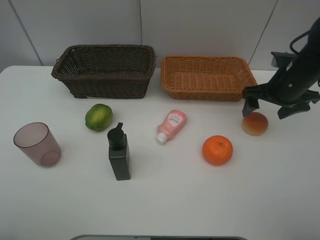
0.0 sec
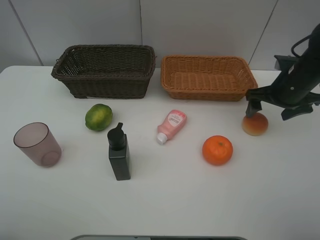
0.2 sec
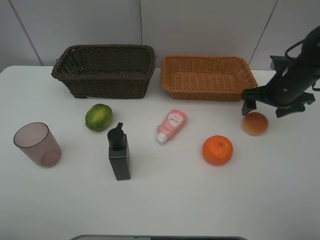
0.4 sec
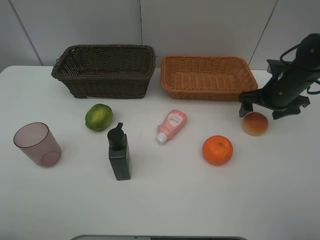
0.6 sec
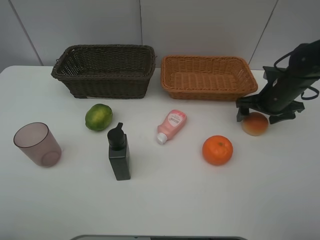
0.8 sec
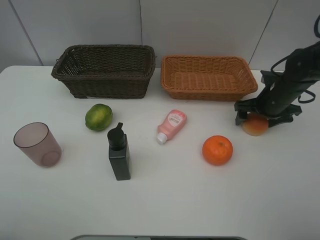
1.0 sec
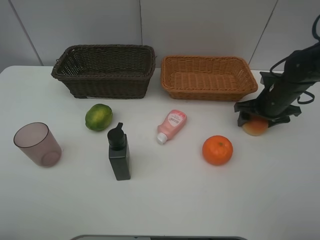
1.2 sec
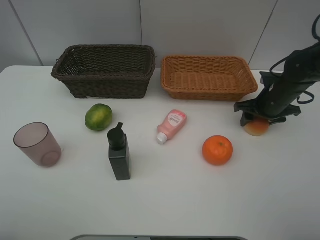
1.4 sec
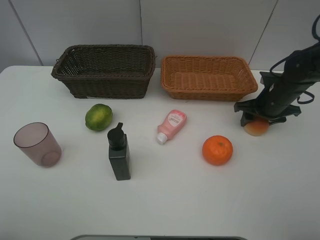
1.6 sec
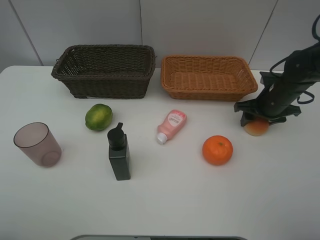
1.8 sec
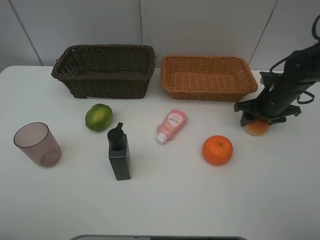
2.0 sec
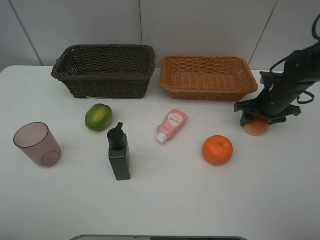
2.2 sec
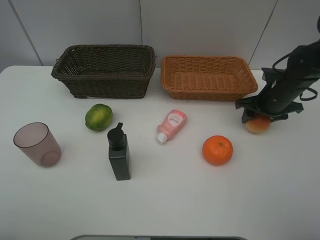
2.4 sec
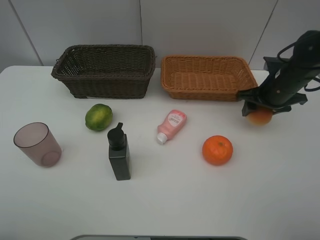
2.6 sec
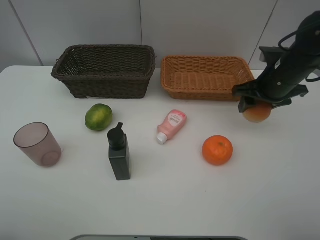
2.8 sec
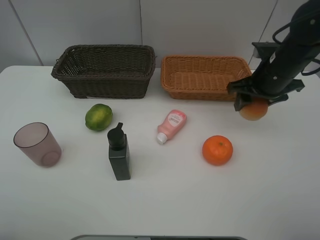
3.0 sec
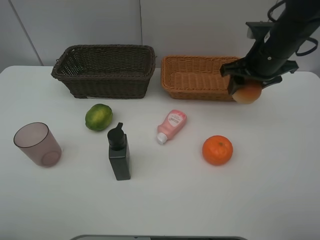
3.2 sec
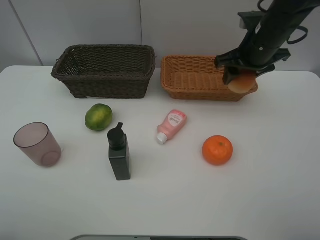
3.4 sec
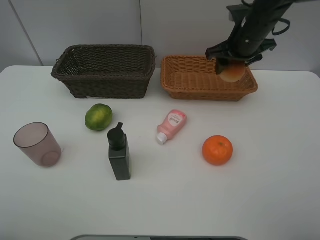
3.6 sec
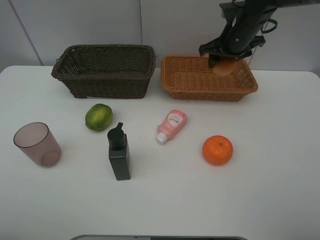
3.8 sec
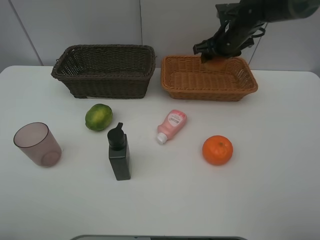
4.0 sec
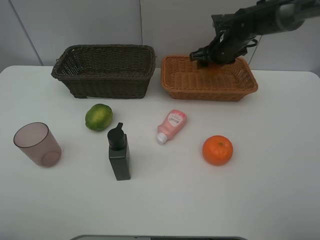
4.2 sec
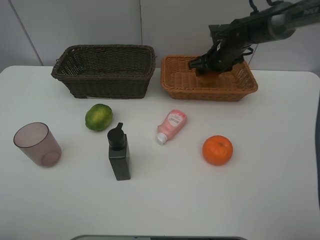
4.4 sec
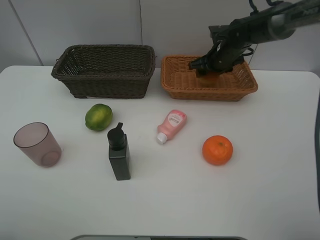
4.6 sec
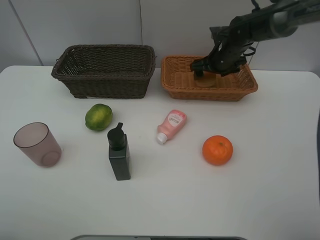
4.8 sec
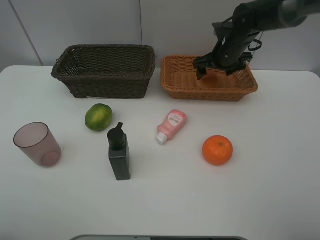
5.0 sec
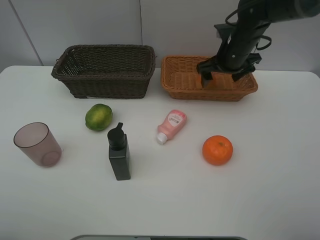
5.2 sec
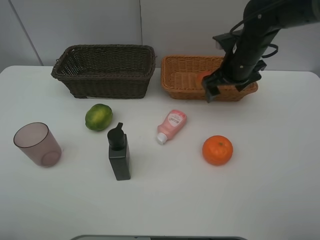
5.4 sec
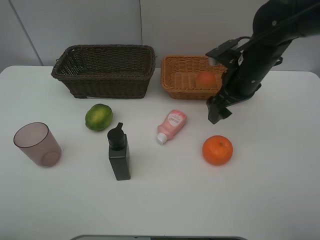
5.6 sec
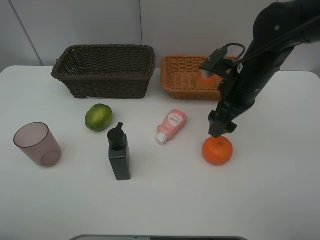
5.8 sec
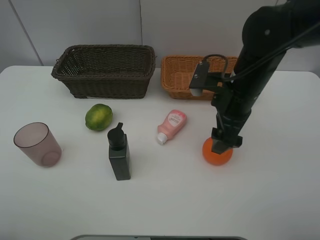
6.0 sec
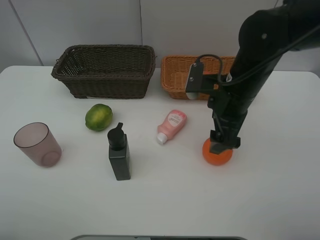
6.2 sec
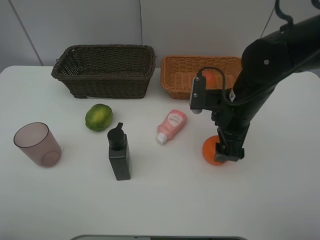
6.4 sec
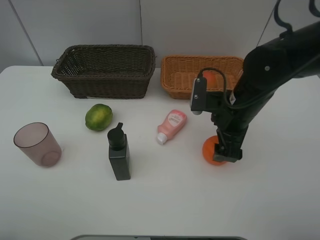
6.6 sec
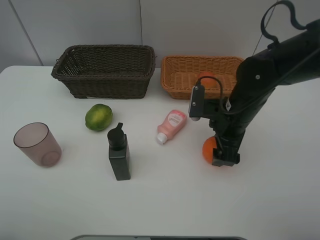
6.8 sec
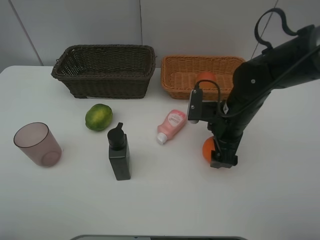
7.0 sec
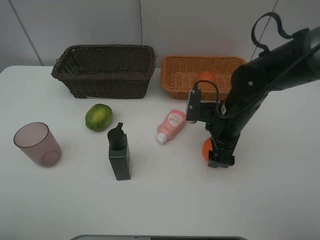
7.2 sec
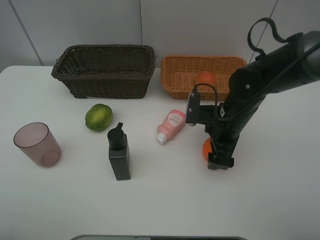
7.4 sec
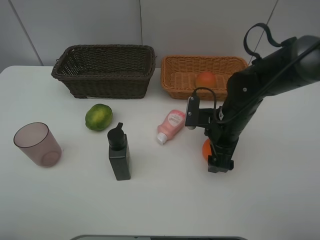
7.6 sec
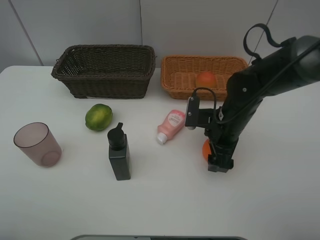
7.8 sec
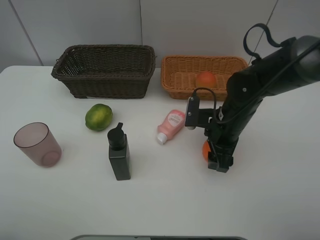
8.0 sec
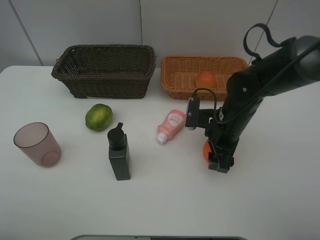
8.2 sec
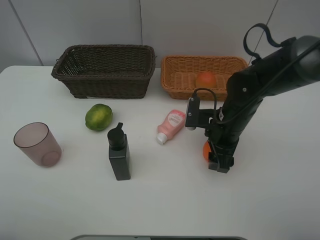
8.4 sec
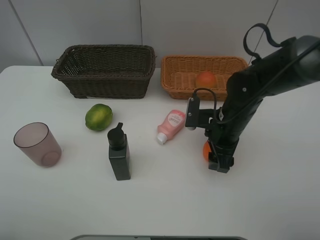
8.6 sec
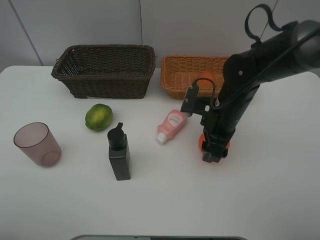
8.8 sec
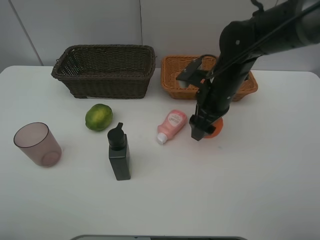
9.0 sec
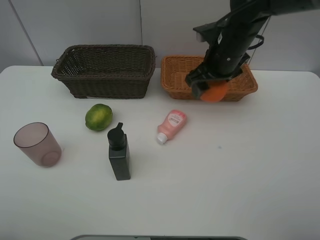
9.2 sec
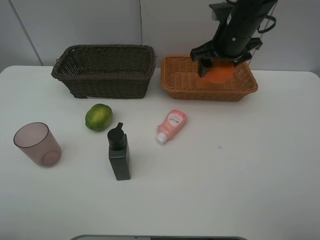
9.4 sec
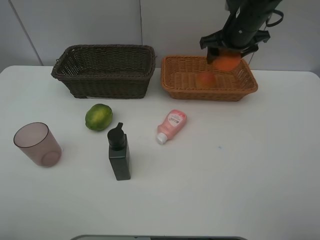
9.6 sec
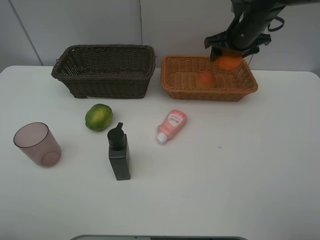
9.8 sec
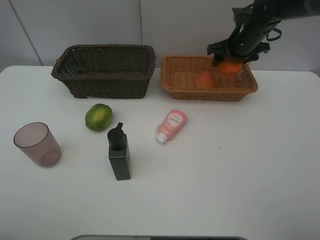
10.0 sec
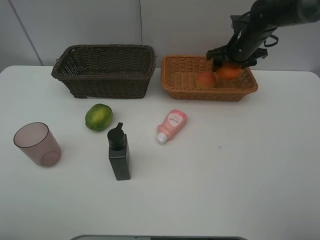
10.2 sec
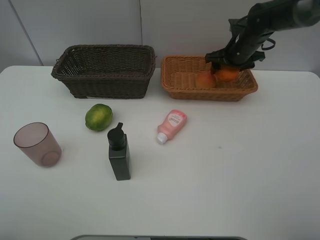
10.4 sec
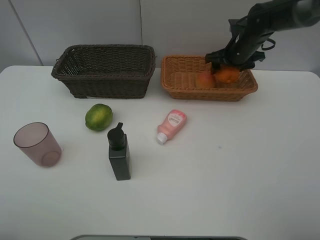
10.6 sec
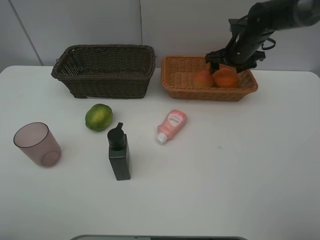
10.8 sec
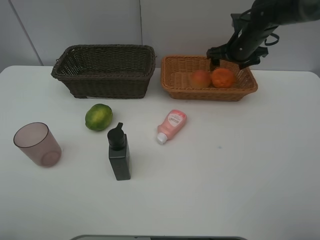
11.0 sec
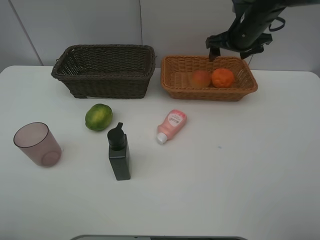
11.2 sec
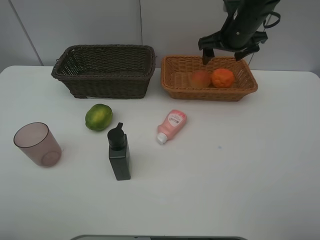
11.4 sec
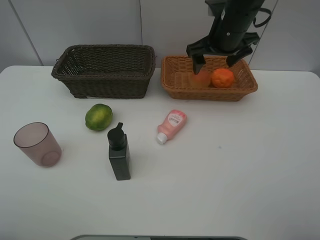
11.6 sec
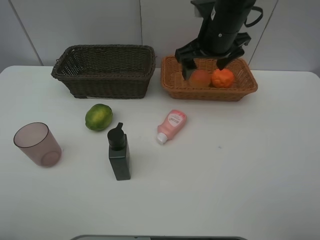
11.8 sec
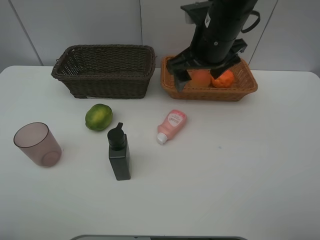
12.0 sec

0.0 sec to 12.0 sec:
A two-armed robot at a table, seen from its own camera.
Task of the whole recording: place multiple objects separately in different baskets.
0.0 sec to 1.6 sec: The right gripper is displaced downward by approximately 5 cm, and closes its fingers.
1.6 sec to 3.0 sec: The right gripper moves upward and to the left, approximately 10 cm.
3.0 sec to 4.4 sec: The right gripper moves forward, some 15 cm.
4.4 sec to 6.0 sec: The right gripper moves backward, approximately 20 cm, and opens.
6.0 sec to 7.6 sec: The right gripper moves downward, approximately 10 cm.
7.6 sec to 9.0 sec: The right gripper travels upward by roughly 5 cm, and closes.
9.0 sec to 10.4 sec: The right gripper heads forward and to the right, covering some 20 cm.
10.4 sec to 12.0 sec: The right gripper travels backward, to the left and upward by roughly 20 cm, and opens its fingers.

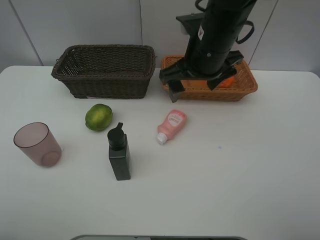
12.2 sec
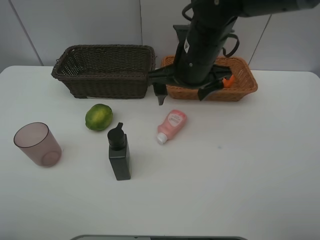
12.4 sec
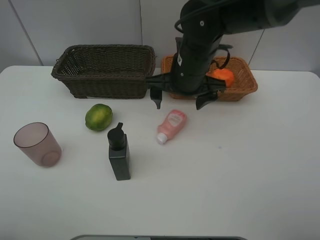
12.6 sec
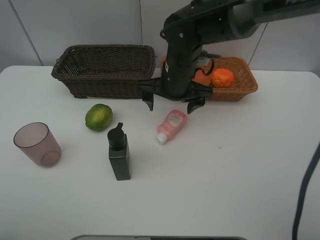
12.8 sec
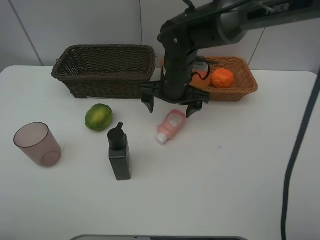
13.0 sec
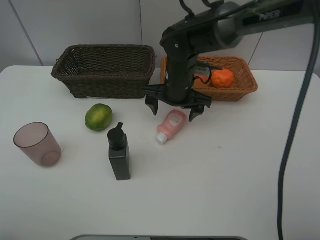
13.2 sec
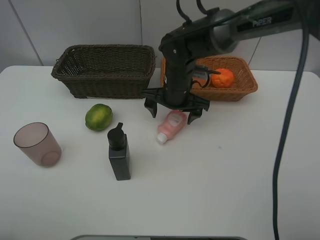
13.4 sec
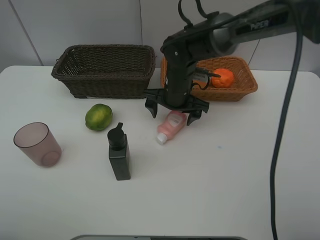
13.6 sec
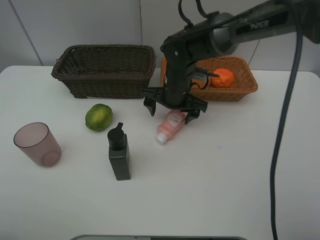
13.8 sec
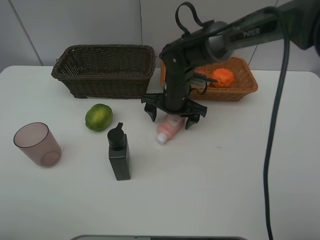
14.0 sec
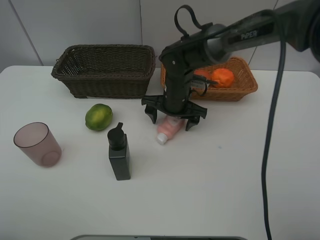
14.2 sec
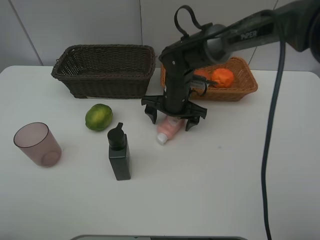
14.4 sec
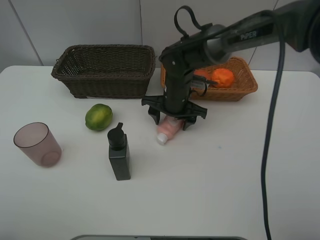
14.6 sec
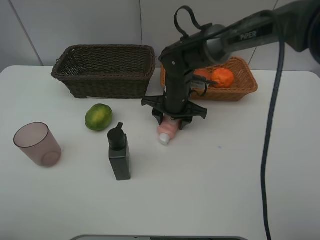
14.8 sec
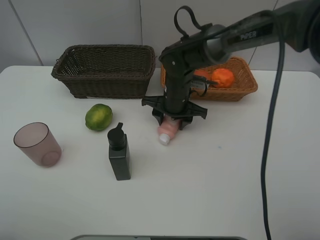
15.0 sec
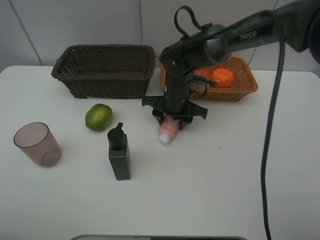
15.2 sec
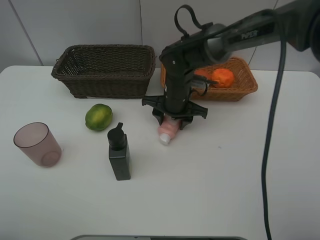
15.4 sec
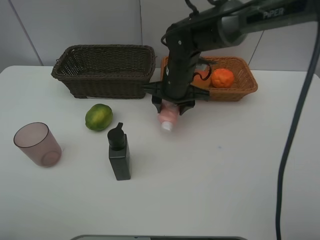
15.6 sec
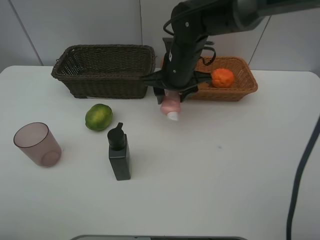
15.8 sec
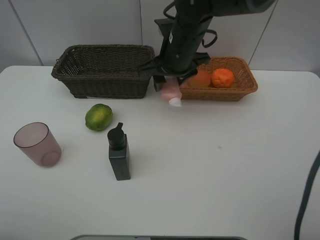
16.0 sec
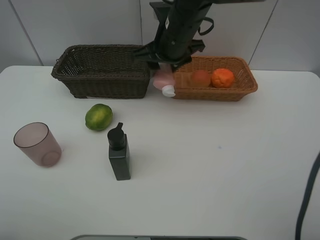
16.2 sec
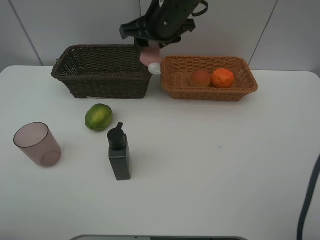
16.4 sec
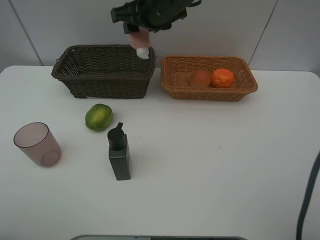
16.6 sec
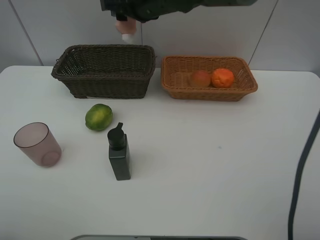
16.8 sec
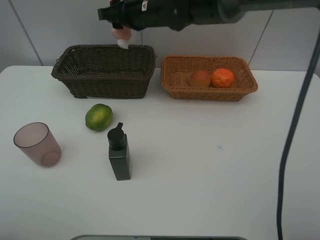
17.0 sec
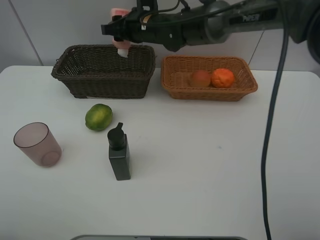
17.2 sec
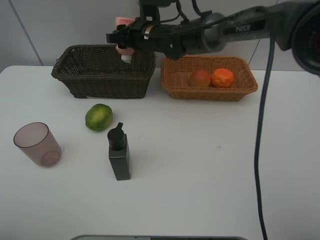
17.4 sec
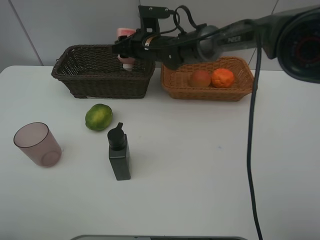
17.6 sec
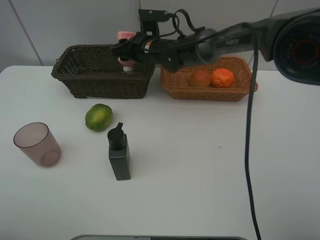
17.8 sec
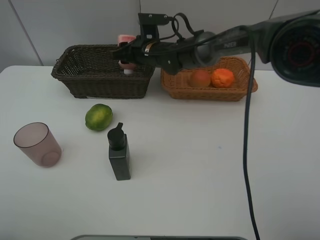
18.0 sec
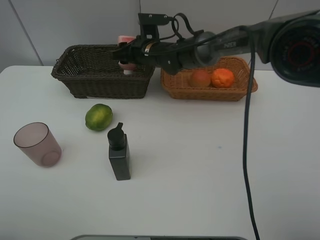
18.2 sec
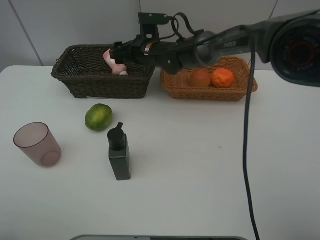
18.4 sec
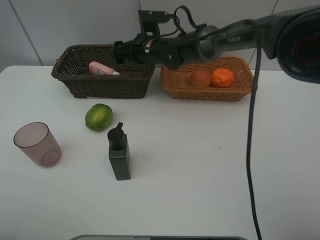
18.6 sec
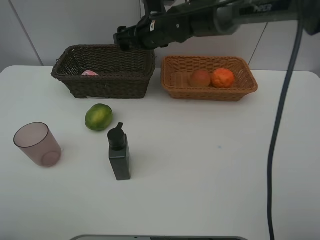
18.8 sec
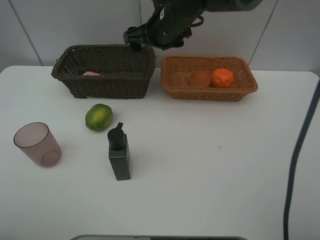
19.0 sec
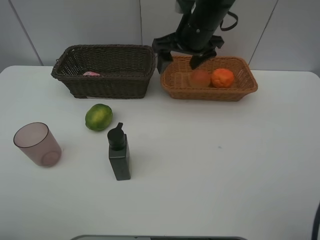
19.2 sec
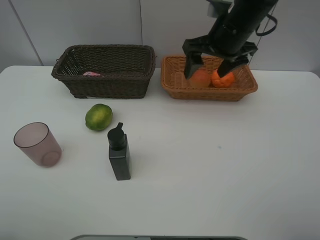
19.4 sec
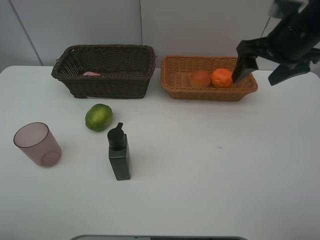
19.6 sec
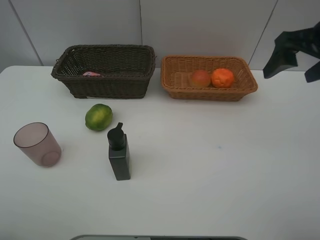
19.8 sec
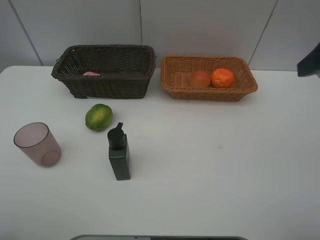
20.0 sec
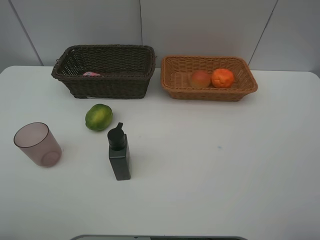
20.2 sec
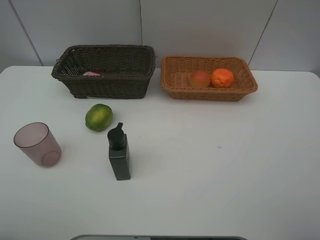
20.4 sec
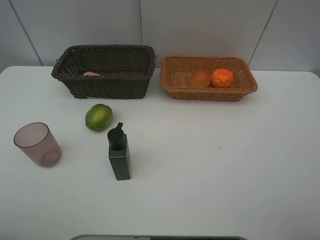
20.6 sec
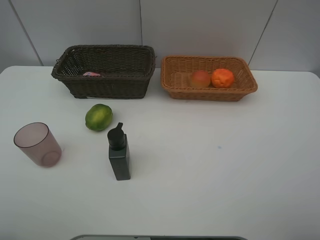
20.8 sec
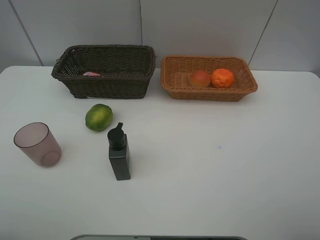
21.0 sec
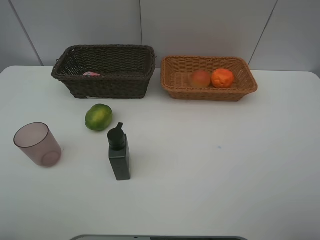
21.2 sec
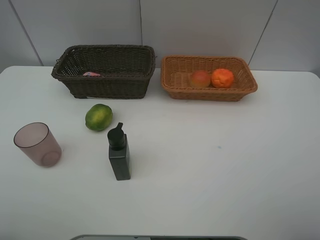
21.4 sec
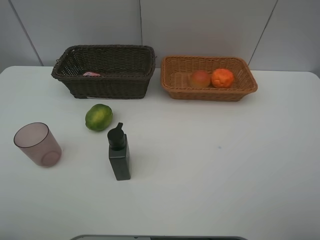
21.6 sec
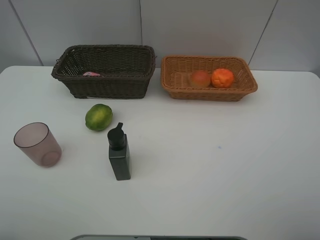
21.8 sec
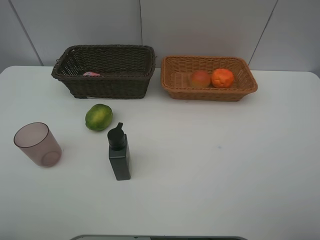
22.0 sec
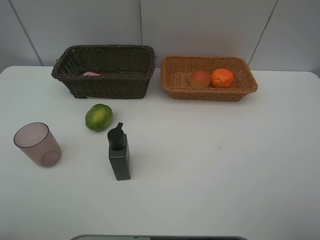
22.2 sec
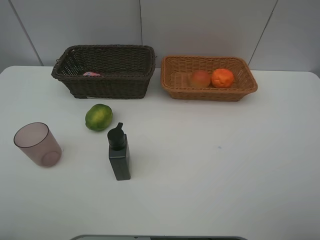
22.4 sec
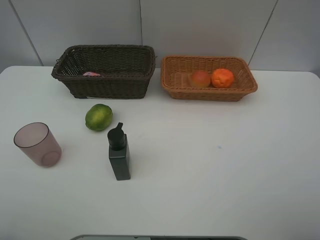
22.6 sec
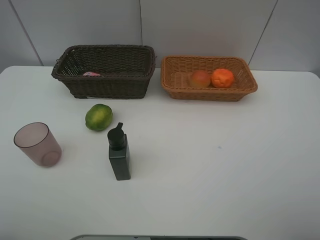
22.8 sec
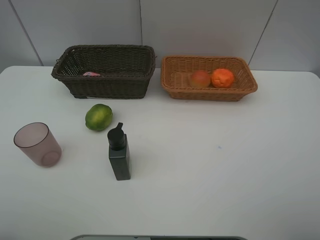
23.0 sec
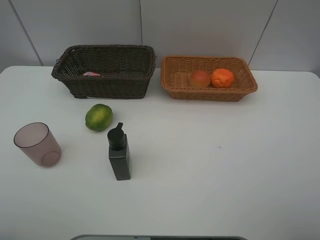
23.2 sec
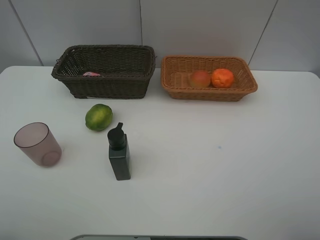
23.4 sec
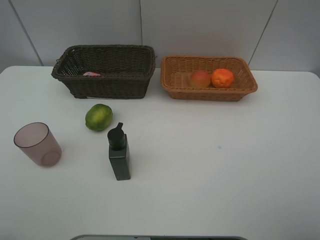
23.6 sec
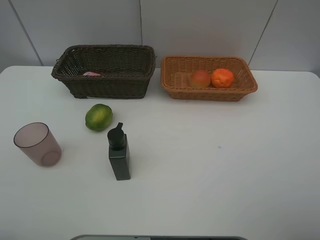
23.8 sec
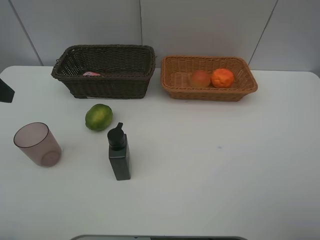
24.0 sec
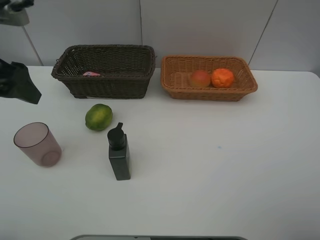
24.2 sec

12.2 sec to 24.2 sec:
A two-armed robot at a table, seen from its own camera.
Task of the whole recording: place multiple objects separately in different baskets.
12.2 sec to 13.8 sec: The right gripper moves downward and forward, approximately 15 cm.
13.8 sec to 15.2 sec: The right gripper closes its fingers.
15.2 sec to 16.6 sec: The right gripper shifts some 20 cm upward.
16.6 sec to 18.2 sec: The right gripper heads downward, covering about 15 cm.
18.2 sec to 19.8 sec: The right gripper heads to the right, backward and upward, covering about 40 cm, and opens.
19.8 sec to 21.2 sec: The right gripper goes approximately 25 cm backward.
21.2 sec to 22.6 sec: The two grippers keep their place.
22.6 sec to 24.2 sec: The left gripper moves forward, about 25 cm.
